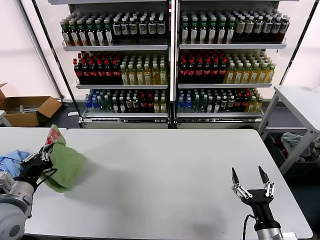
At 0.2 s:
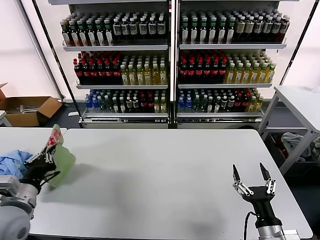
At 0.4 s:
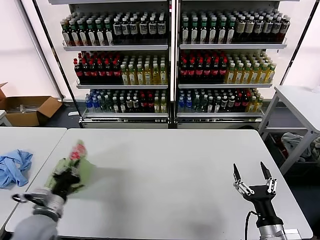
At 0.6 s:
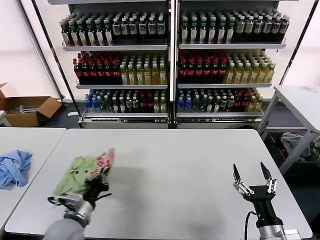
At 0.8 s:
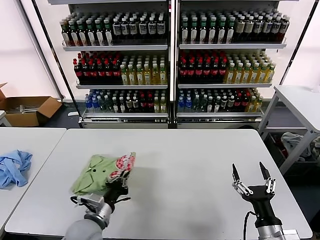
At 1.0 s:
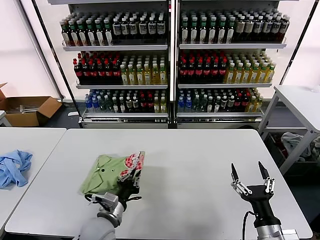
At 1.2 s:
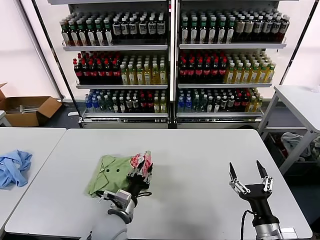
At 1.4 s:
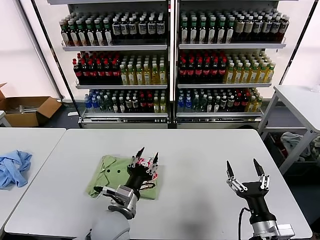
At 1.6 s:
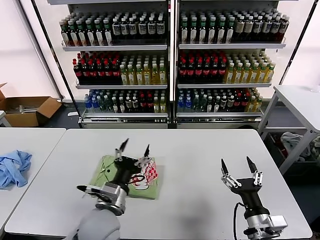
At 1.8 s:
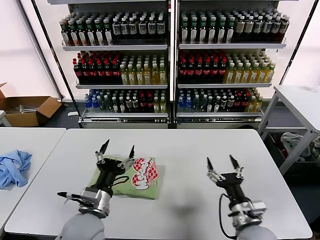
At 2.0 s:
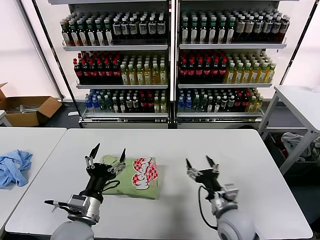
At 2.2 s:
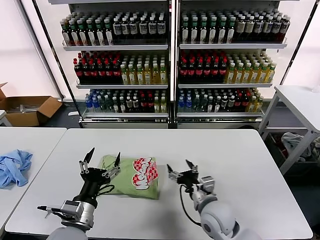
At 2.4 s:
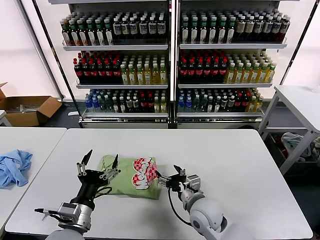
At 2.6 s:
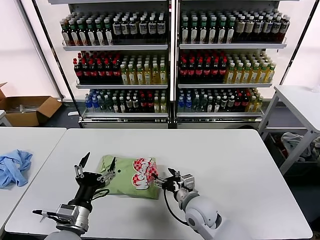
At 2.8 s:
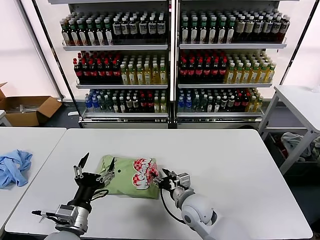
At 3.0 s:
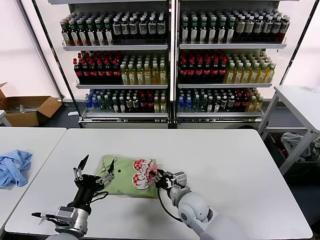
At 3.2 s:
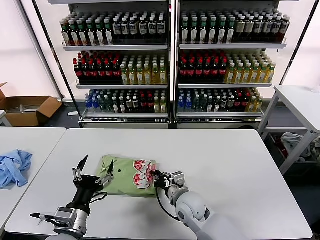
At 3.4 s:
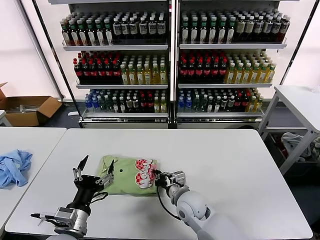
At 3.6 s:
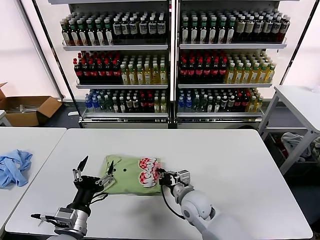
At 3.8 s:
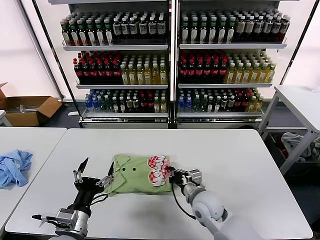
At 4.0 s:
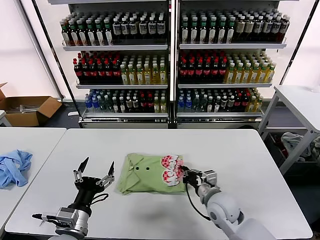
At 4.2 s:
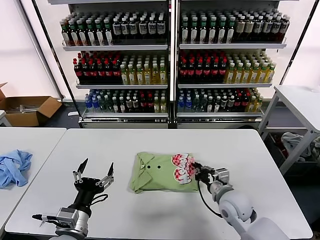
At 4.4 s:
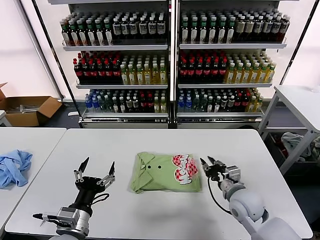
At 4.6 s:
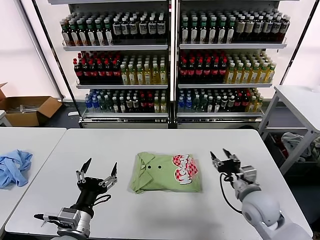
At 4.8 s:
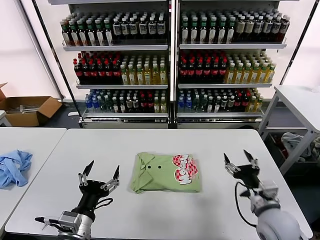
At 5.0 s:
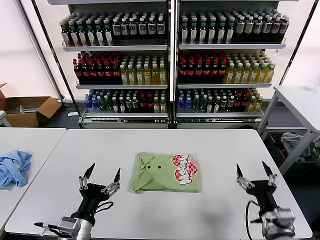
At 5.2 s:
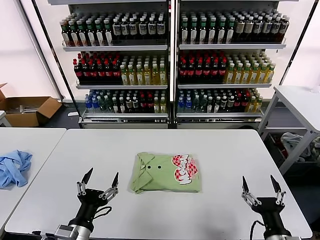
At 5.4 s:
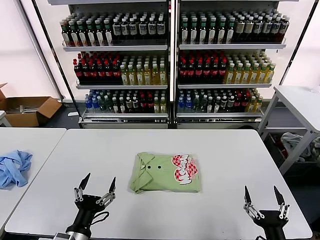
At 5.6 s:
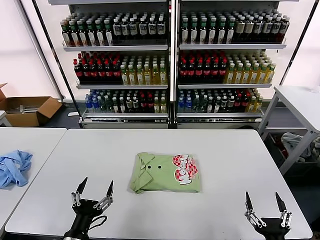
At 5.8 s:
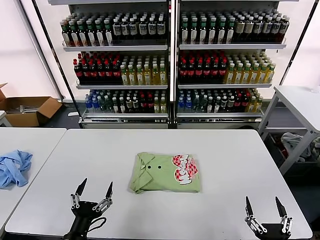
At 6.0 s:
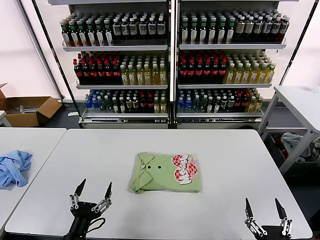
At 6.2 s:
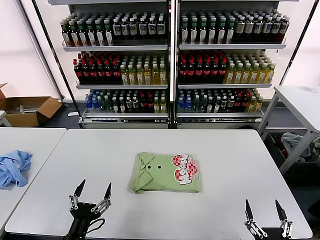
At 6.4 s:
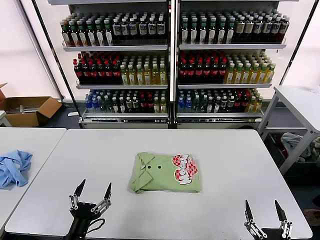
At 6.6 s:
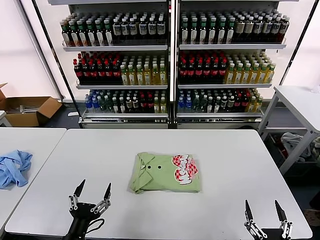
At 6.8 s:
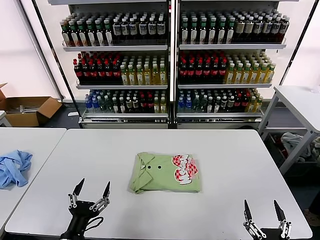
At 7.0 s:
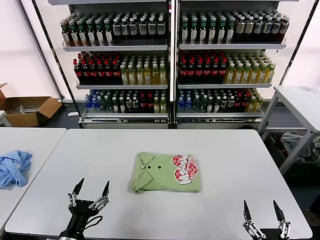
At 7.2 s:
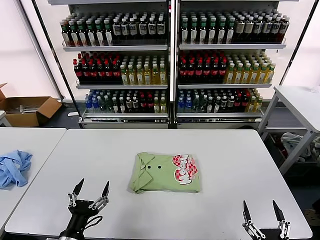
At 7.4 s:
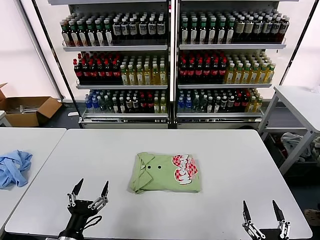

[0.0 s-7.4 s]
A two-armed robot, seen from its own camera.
Task of the whole recording: fold and organize the clothes.
Step, 1.4 to 4.2 s: Drag the clothes to the center of the table.
0.0 to 1.4 s: The left gripper travels to the right by approximately 25 cm, and opens up.
1.4 to 3.0 s: The left gripper moves to the left and backward, roughly 10 cm, and opens up; the right gripper goes approximately 25 cm to the left and forward, and closes its fingers.
3.0 to 4.4 s: The right gripper goes some 15 cm to the right.
4.4 to 6.0 s: The left gripper is displaced backward by about 5 cm; the right gripper shifts roughly 25 cm backward, and opens up.
6.0 to 7.4 s: The grippers move only a little.

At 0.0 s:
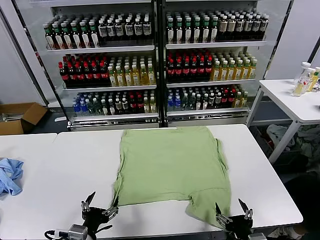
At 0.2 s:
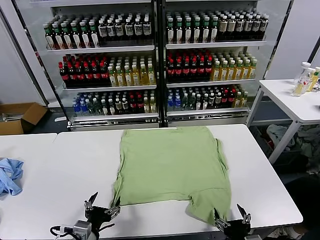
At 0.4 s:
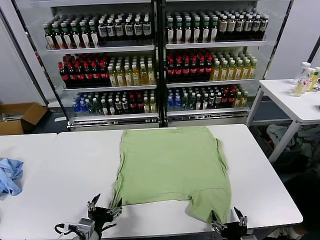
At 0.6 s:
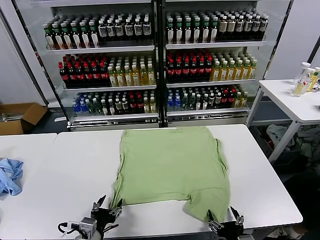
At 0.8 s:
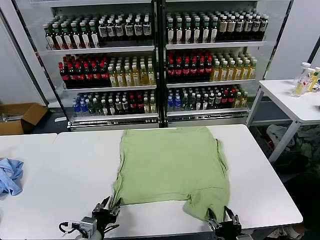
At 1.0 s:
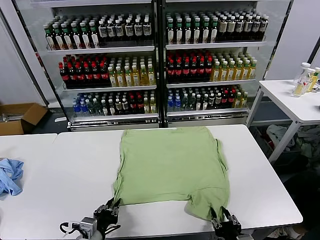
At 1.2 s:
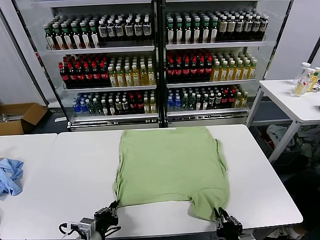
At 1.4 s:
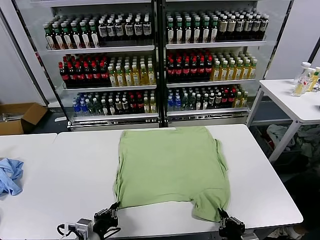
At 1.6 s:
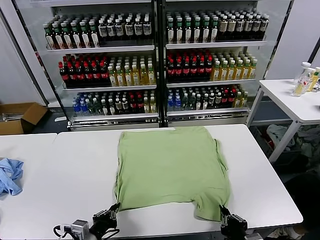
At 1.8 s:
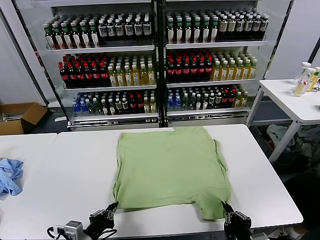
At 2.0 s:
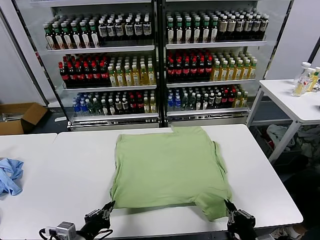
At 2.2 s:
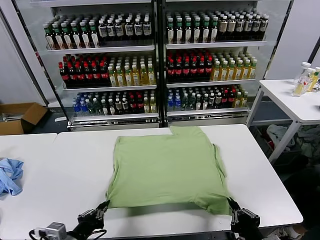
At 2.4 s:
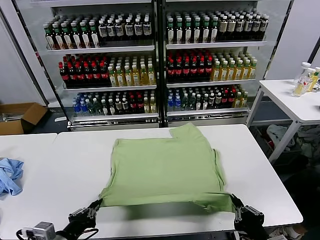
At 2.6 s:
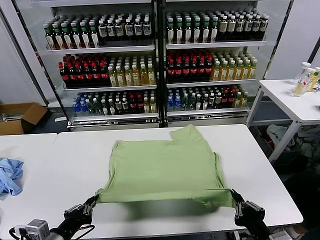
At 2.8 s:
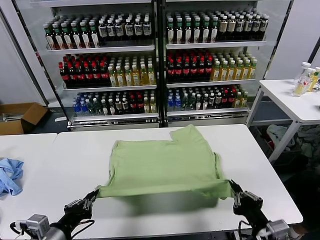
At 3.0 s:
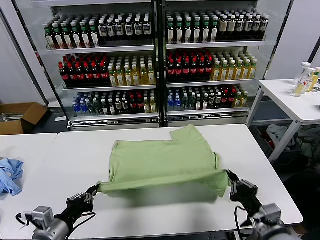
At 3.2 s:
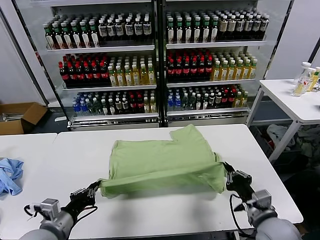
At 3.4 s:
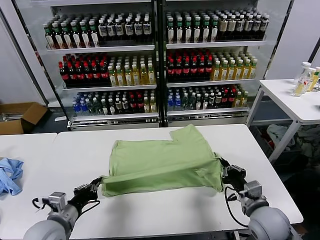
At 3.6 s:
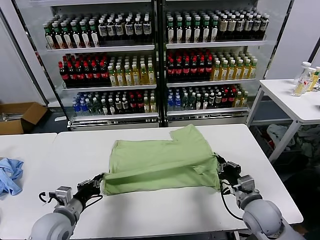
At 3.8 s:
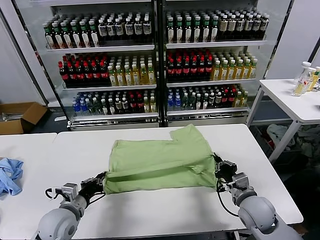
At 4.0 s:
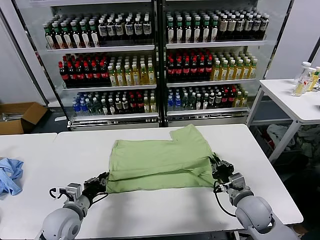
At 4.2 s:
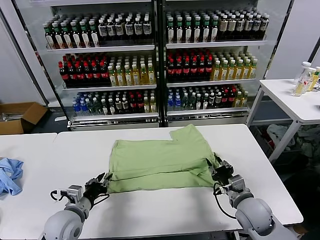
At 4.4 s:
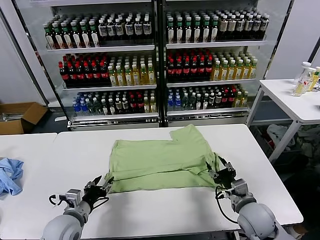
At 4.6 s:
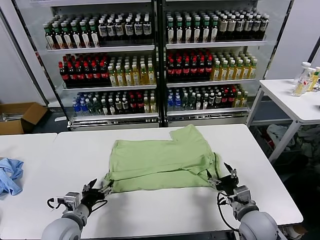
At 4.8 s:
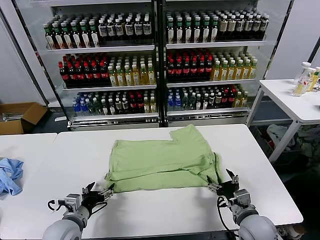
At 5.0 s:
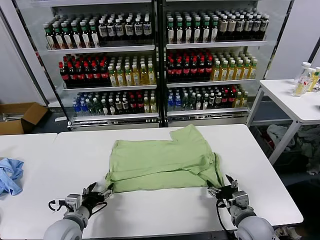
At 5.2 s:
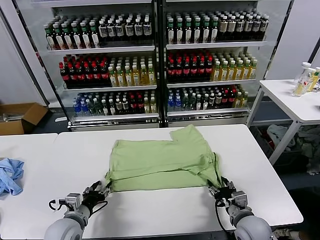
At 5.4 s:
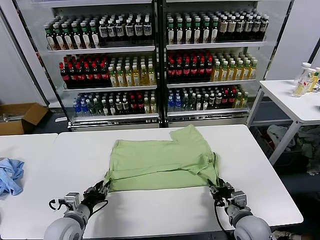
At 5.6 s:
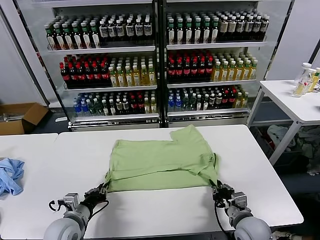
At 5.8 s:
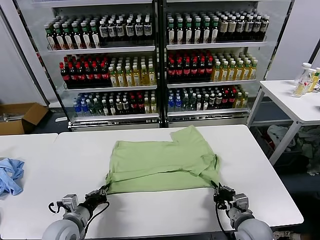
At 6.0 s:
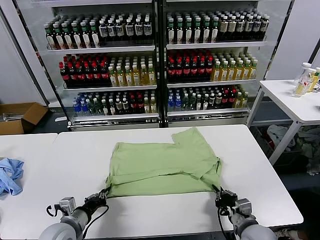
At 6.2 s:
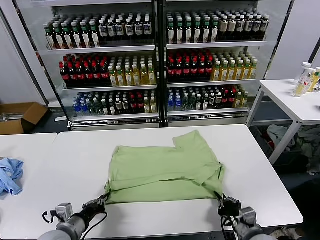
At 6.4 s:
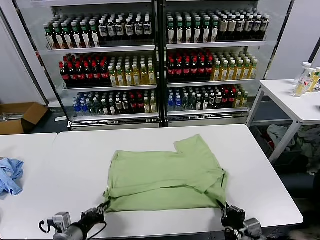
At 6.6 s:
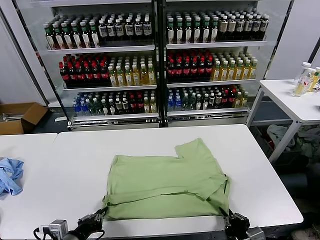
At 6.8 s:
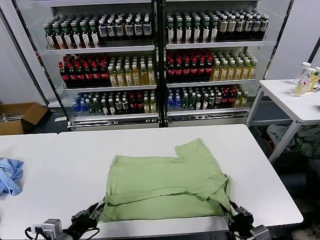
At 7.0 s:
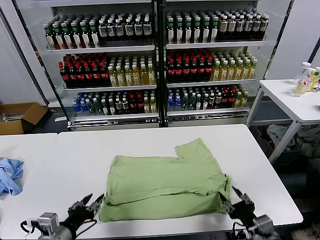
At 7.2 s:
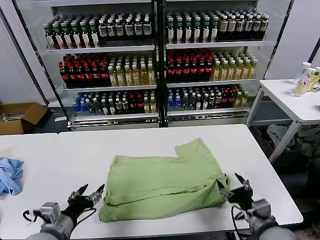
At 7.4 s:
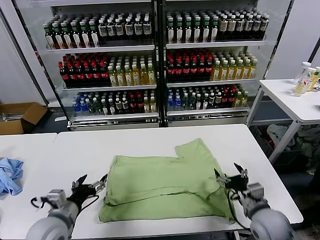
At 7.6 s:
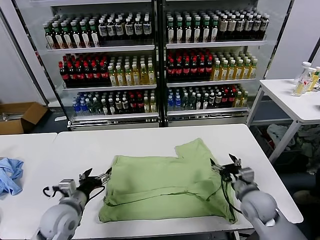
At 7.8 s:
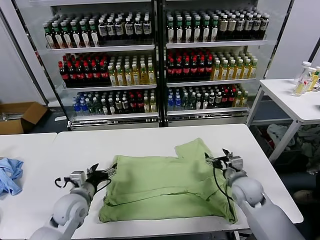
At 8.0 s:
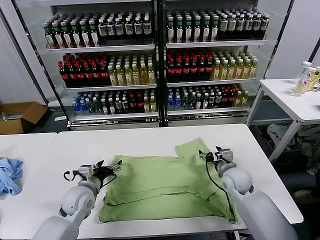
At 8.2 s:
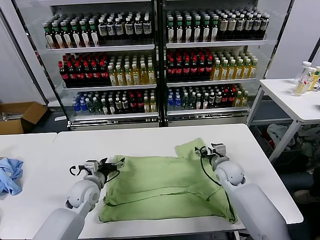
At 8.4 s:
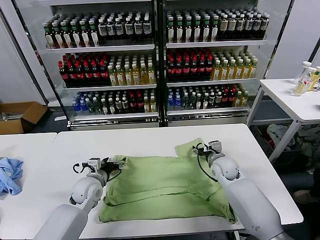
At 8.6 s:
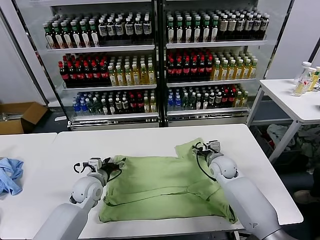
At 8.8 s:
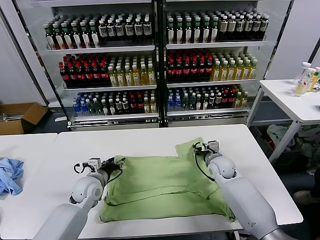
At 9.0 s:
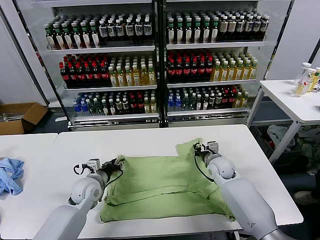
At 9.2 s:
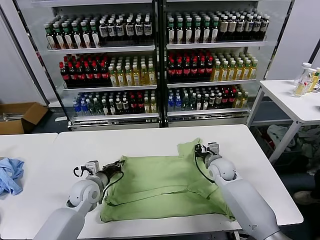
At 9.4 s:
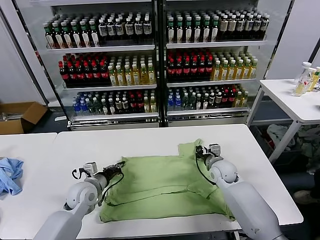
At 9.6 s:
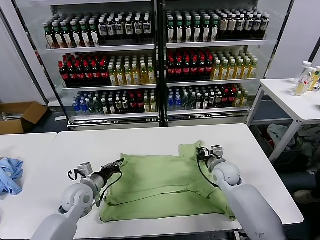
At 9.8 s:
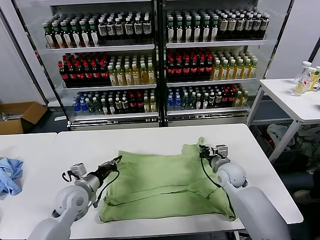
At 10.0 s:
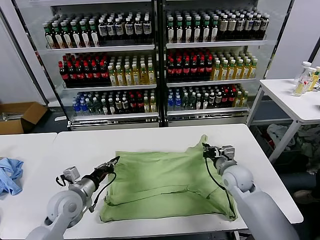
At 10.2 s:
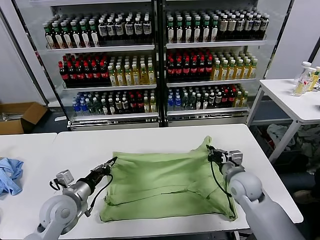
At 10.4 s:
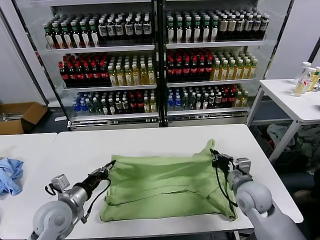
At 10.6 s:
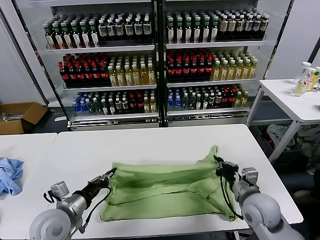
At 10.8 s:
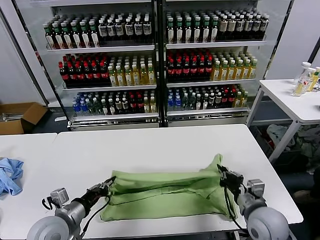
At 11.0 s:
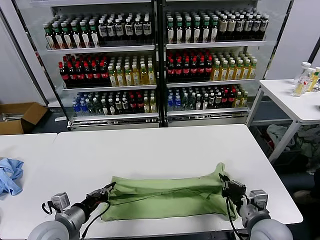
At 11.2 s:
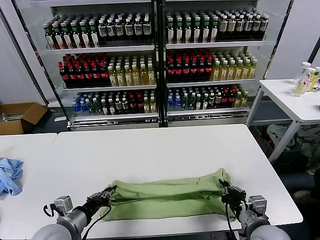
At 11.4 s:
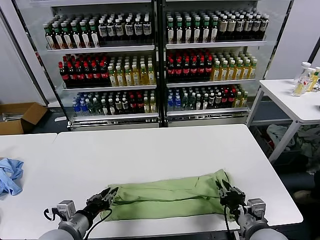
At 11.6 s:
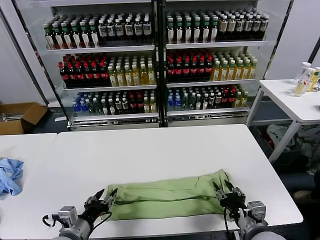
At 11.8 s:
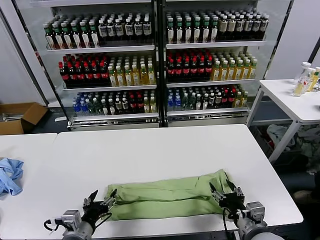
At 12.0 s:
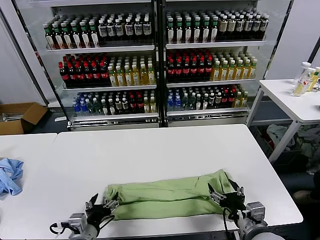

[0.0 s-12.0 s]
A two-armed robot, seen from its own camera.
Task of the whole recording: fold and organize the clothes.
Step, 0.0 to 1.6 s: use both grippers simultaneously to clamp the lower edge of the clothing fabric.
Step, 1.8 to 4.4 s: use both grippers to drag the lower edge of the fabric forward and fold it over the upper edge.
Step, 4.6 to 6.8 s: Drag the clothes downward with both gripper.
Step, 7.0 to 9.2 s: use both grippers simultaneously to clamp the upper edge of the clothing fabric.
Step, 9.6 to 11.6 s: use both grippers to drag the upper edge of the fabric backward and fold it over the lower edge.
1.6 to 3.0 s: The right gripper heads forward, covering approximately 10 cm. Meanwhile the left gripper moves upward and to the left, roughly 10 cm.
3.0 to 4.4 s: The left gripper goes about 10 cm forward and downward, and opens up. Meanwhile the right gripper goes roughly 5 cm forward and downward, and opens.
4.4 to 6.0 s: The left gripper closes its fingers. The right gripper moves backward, about 5 cm, and closes up.
6.0 to 7.6 s: The right gripper moves forward, roughly 15 cm, and opens, while the left gripper goes backward and returns, approximately 10 cm each way, and opens.
7.6 to 9.0 s: The right gripper goes about 15 cm forward and to the left, and closes up, while the left gripper travels forward by some 10 cm, and closes.
9.0 to 10.4 s: The two grippers go approximately 15 cm backward and upward. The left gripper closes its fingers.
10.4 to 12.0 s: The left gripper moves backward, to the right and downward, some 15 cm, and opens up; the right gripper goes roughly 10 cm backward, and opens up.

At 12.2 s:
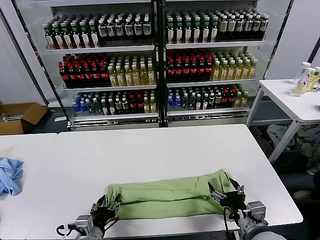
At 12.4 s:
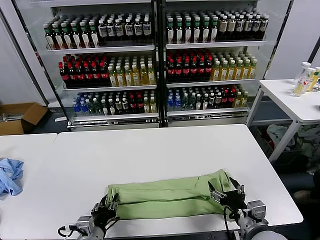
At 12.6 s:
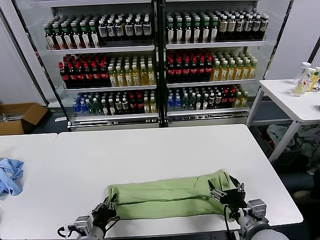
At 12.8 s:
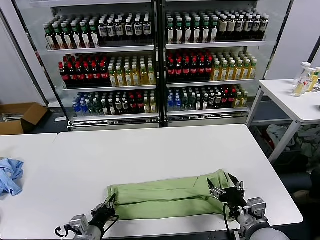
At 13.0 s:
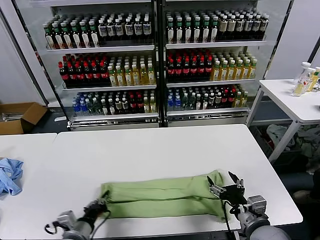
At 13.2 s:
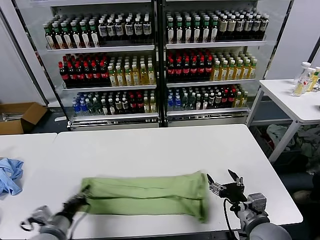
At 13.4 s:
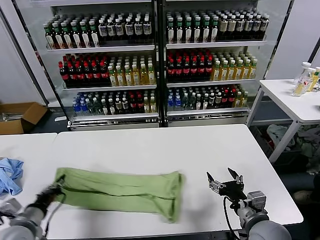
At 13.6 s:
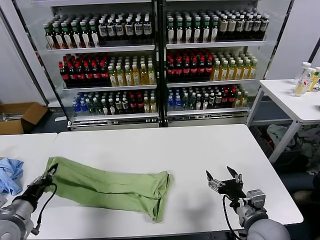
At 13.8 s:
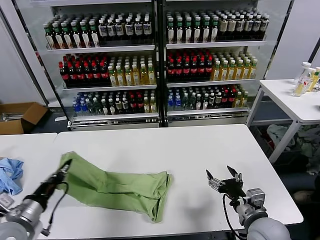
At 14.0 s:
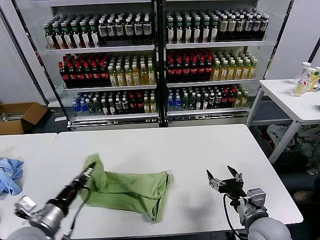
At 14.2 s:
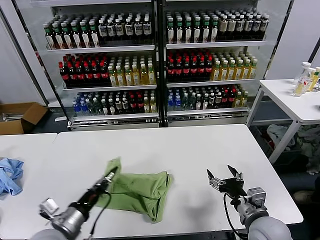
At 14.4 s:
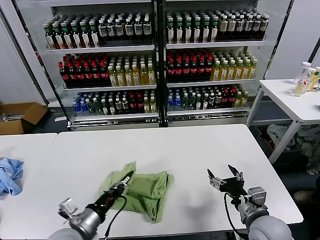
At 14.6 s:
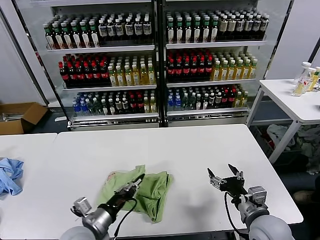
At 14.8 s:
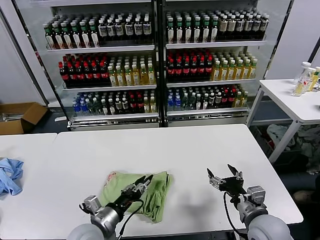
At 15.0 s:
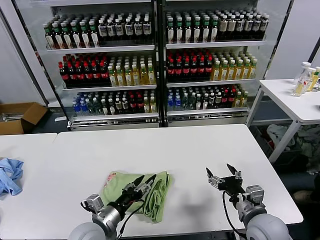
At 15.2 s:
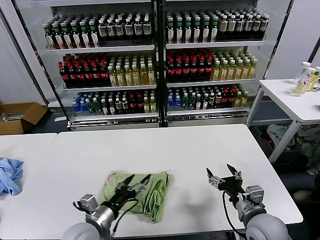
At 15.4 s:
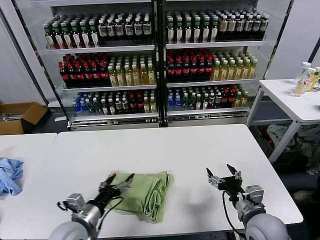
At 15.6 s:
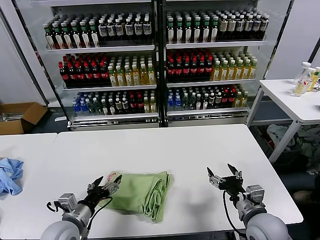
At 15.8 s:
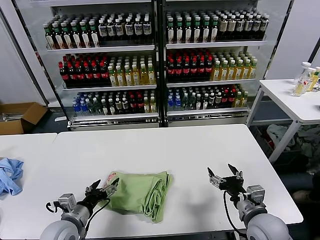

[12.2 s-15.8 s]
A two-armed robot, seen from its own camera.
Task of the whole recording: fold and organize the clothes.
Step, 13.0 to 15.0 s: use the left gripper to drag the left edge of the fabric to the left and folds it over the right edge.
12.2 to 14.0 s: The left gripper heads to the left and upward, covering about 15 cm, and closes.
14.0 to 15.8 s: The left gripper is displaced downward by some 10 cm, moves about 15 cm to the right and comes back, and opens up.
